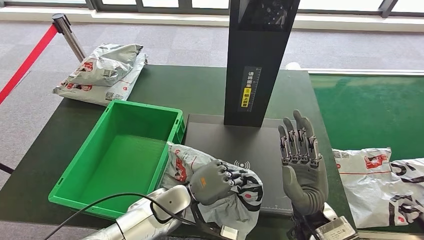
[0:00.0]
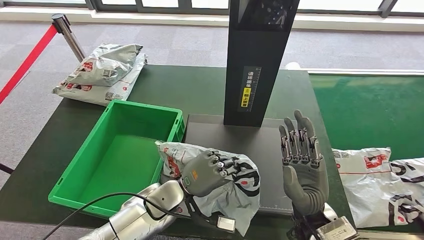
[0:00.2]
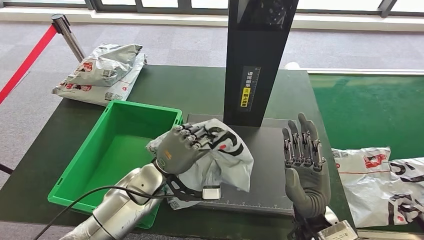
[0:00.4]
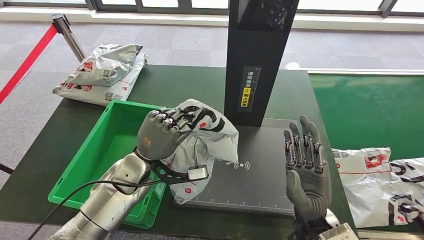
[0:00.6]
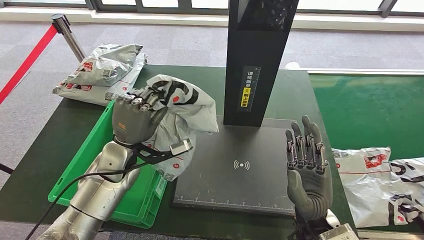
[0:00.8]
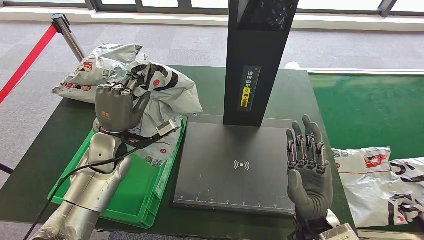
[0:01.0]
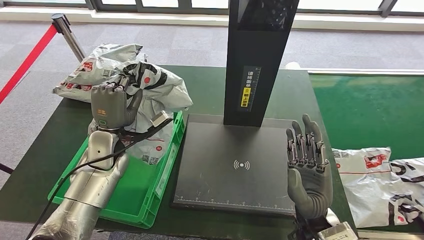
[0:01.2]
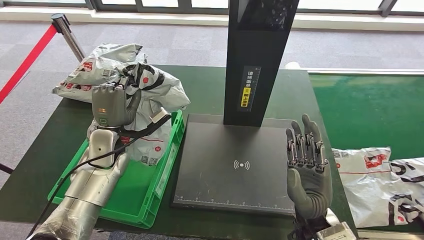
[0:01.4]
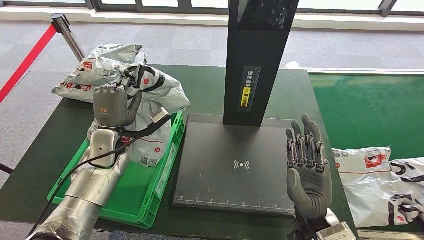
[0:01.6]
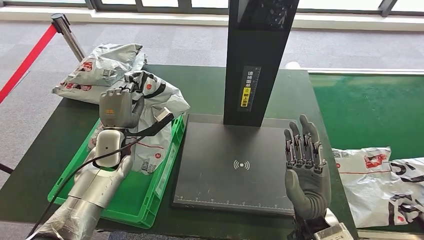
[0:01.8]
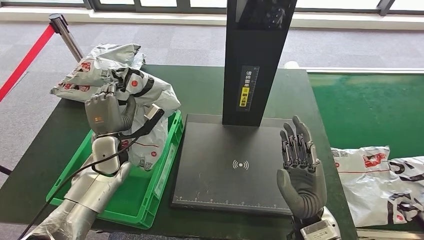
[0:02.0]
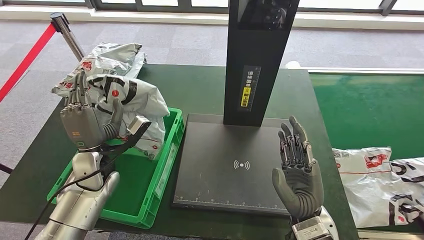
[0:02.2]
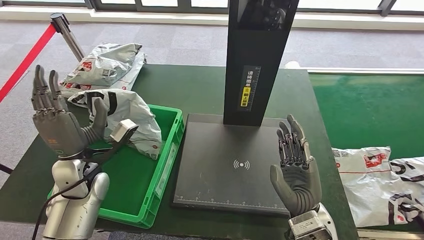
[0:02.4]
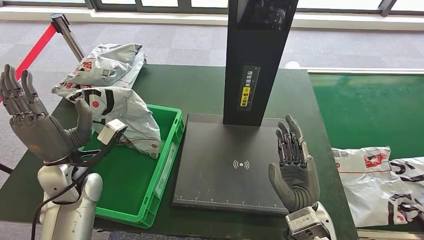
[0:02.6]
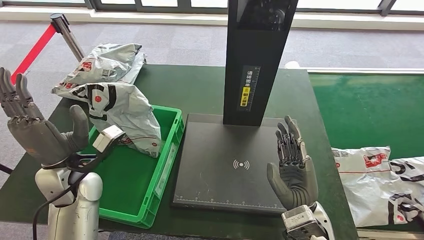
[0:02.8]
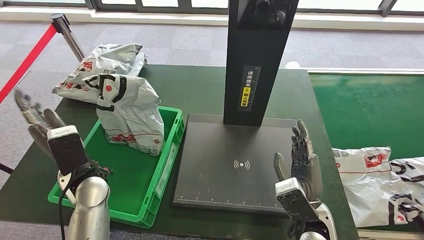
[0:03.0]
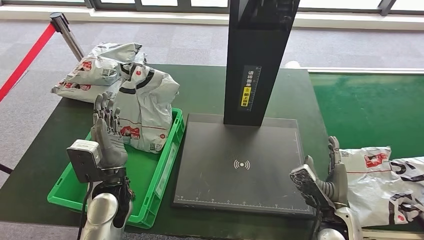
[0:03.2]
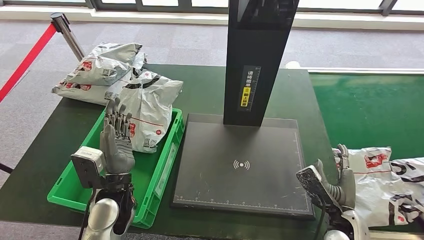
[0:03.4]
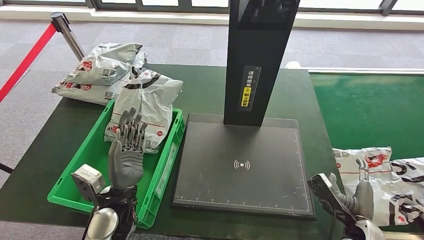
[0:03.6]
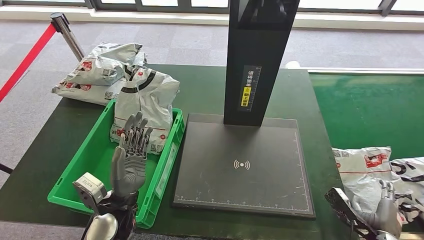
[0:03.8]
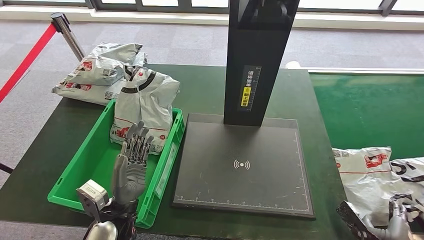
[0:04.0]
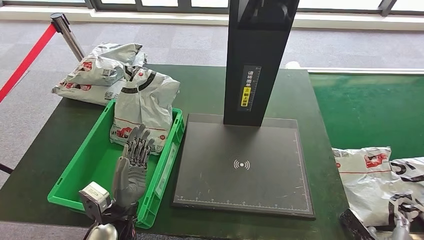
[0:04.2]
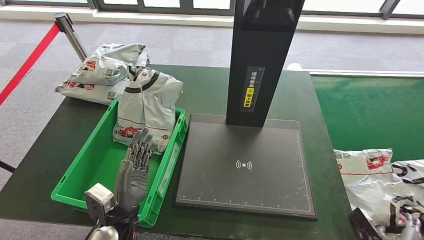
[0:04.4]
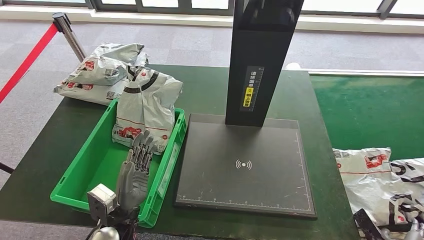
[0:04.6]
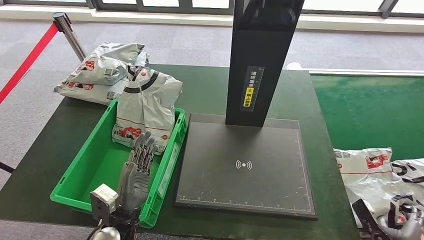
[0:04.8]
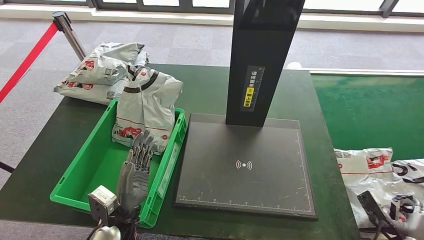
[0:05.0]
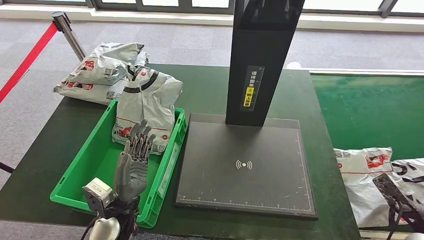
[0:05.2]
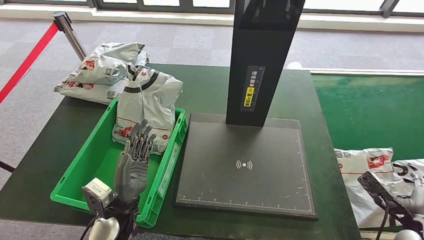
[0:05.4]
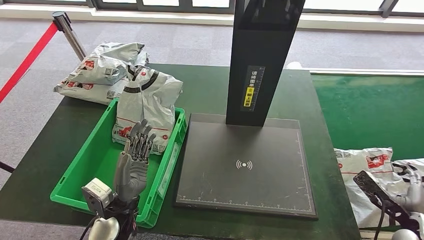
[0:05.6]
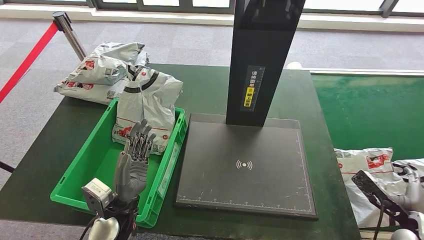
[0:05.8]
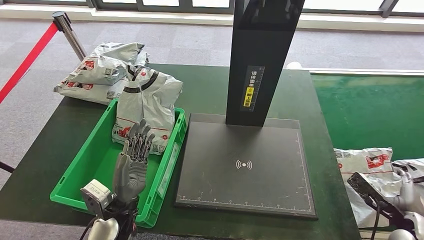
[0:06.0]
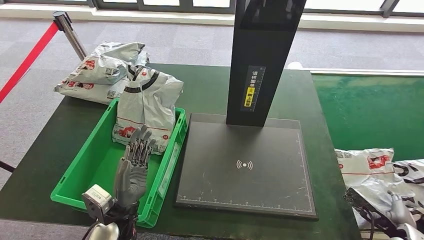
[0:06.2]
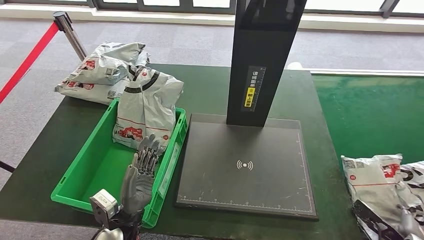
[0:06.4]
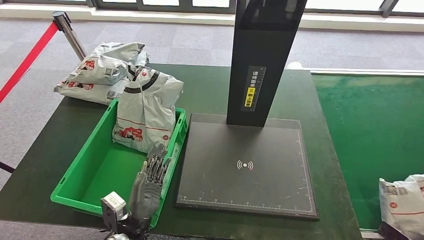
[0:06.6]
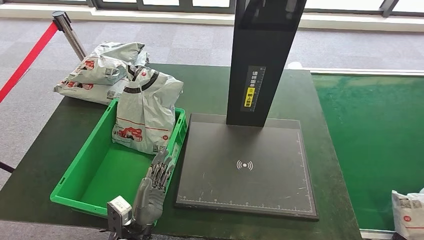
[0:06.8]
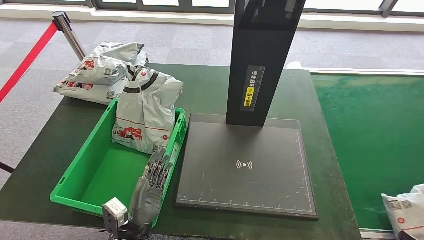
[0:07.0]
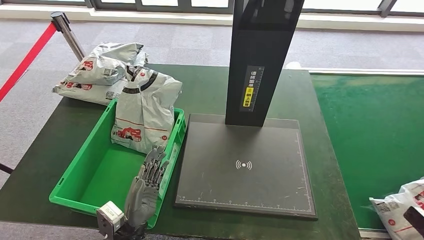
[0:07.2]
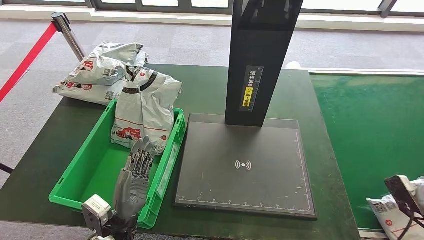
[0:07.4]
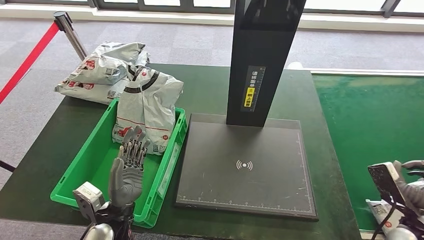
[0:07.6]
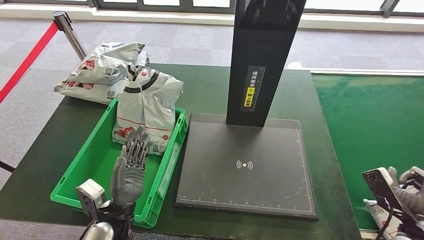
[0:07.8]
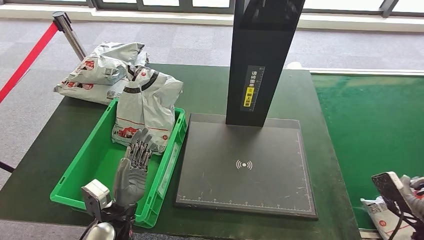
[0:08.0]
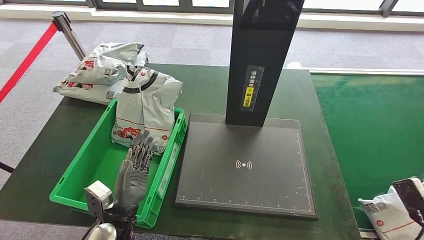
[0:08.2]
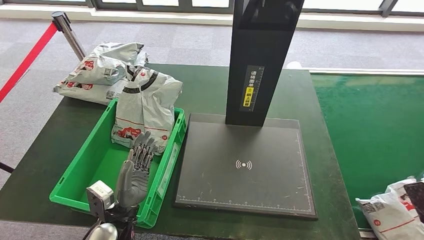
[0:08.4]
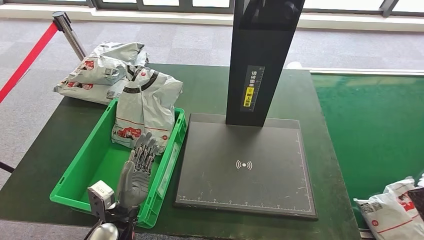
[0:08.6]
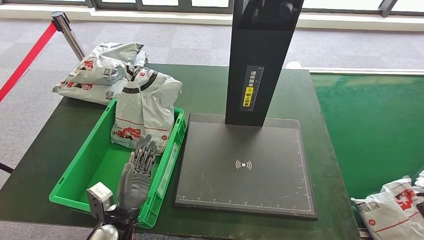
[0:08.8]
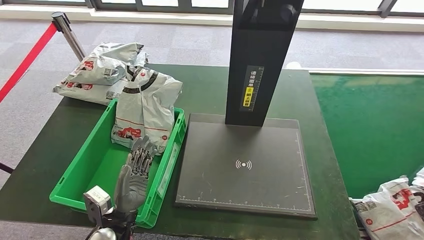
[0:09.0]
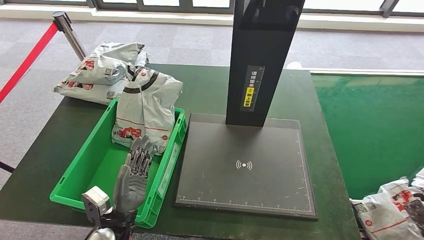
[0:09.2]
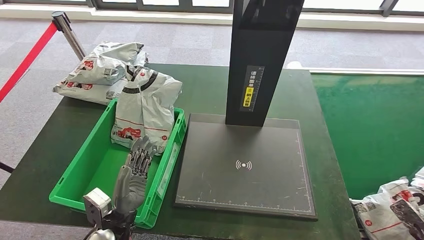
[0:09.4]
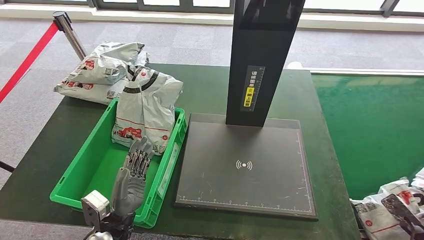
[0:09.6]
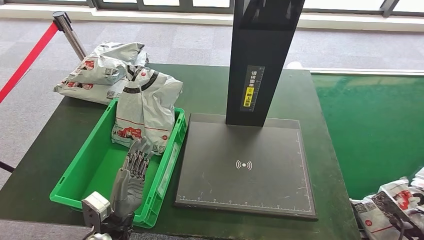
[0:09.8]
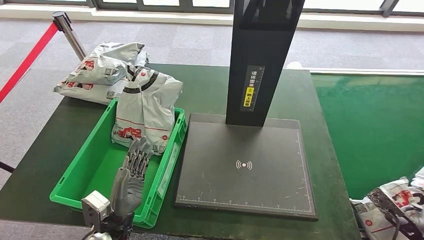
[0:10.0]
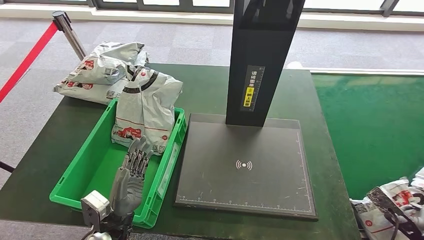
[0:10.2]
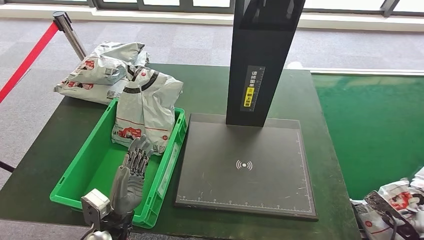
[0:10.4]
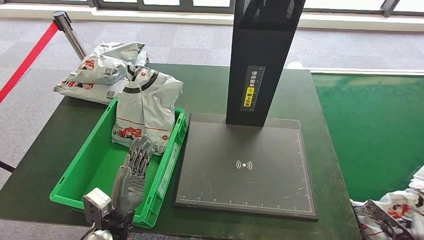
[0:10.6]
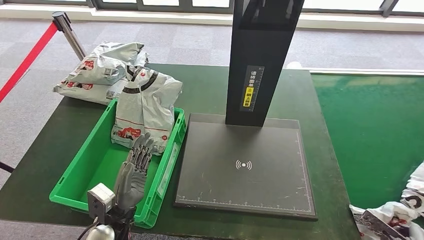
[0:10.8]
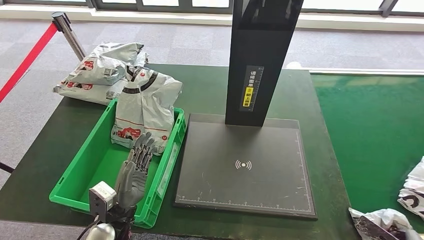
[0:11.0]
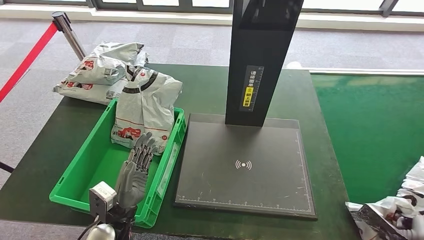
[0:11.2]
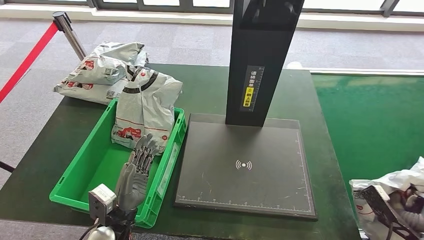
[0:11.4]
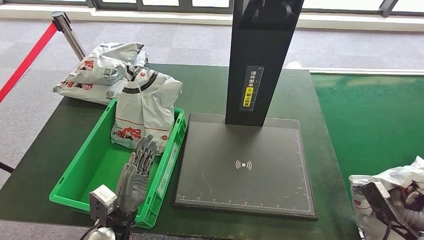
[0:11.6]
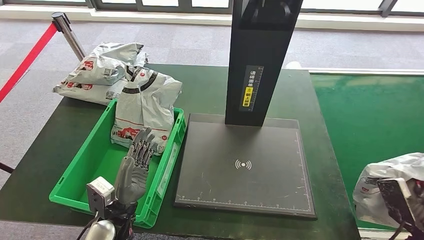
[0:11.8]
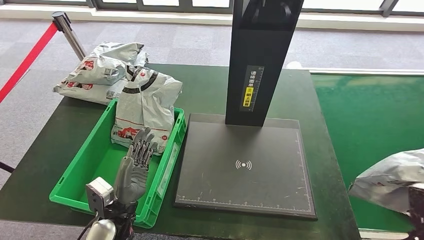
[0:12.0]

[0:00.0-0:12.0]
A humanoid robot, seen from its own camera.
Step, 0:01.4 to 0:04.0: Put the parcel inside the courier box.
0:01.6 to 0:03.0: The left hand moves backward, approximately 10 cm.
0:04.4 to 0:06.0: The right hand goes approximately 15 cm upward and forward.
0:06.0 to 0:07.6: The right hand reaches approximately 10 cm to the right, then returns.
0:07.6 to 0:09.0: The right hand goes some 10 cm backward and to the right.
0:09.0 to 0:10.4: The right hand goes roughly 10 cm downward and forward.
0:10.4 to 0:12.0: The right hand travels to the left and upward by approximately 10 cm.

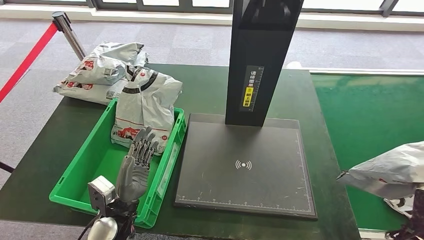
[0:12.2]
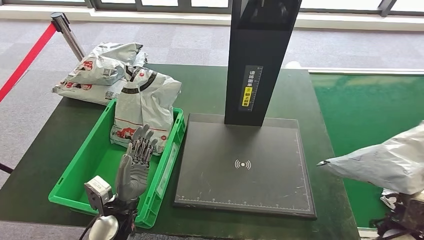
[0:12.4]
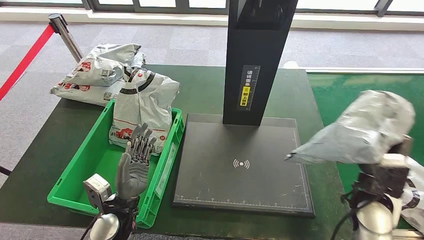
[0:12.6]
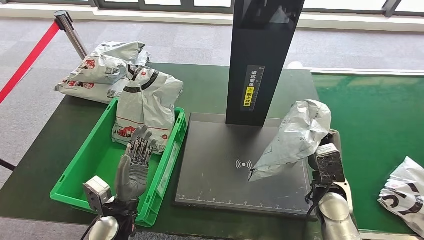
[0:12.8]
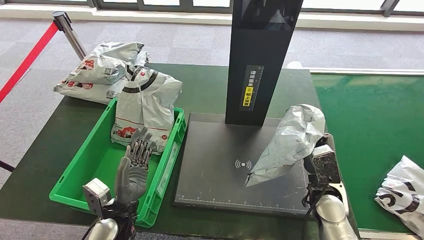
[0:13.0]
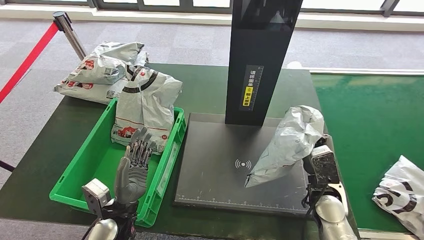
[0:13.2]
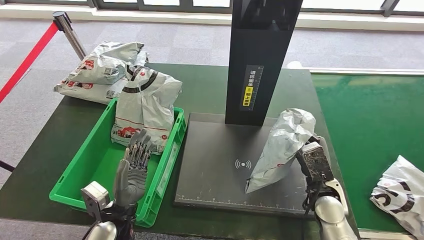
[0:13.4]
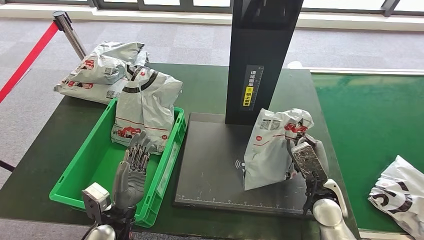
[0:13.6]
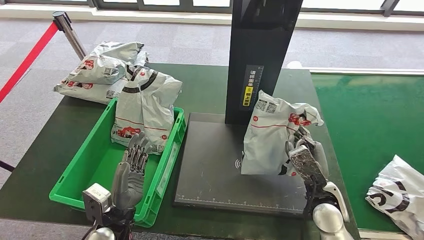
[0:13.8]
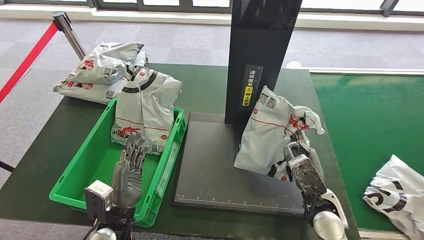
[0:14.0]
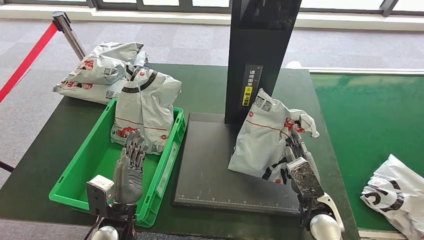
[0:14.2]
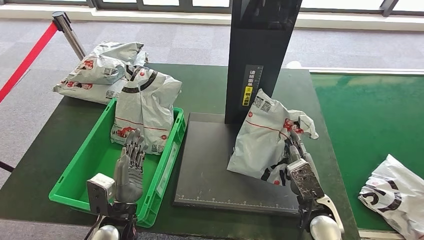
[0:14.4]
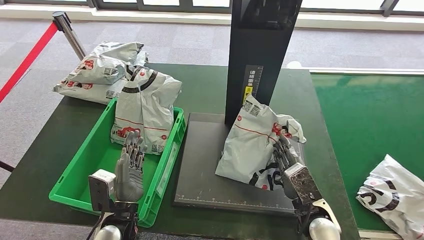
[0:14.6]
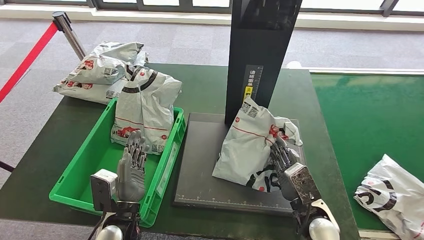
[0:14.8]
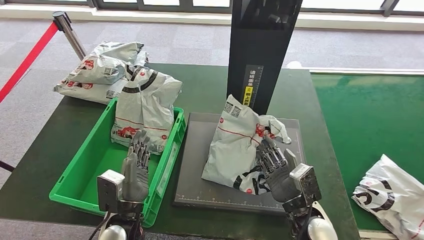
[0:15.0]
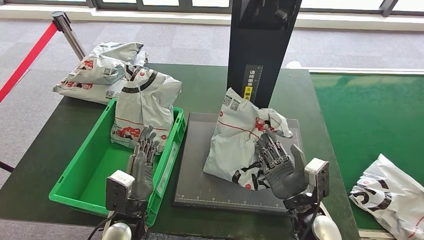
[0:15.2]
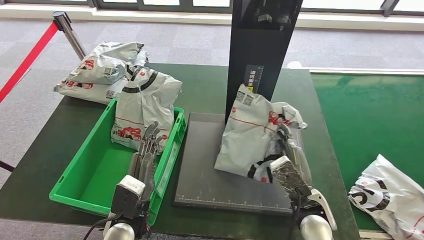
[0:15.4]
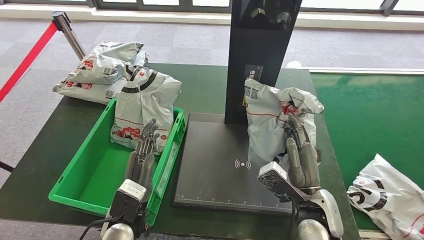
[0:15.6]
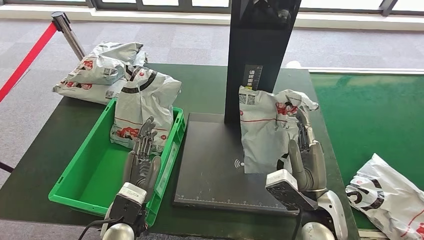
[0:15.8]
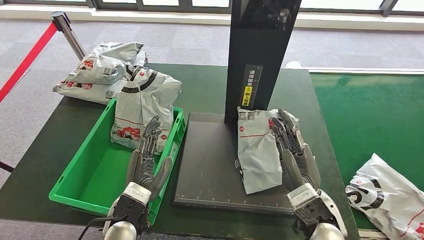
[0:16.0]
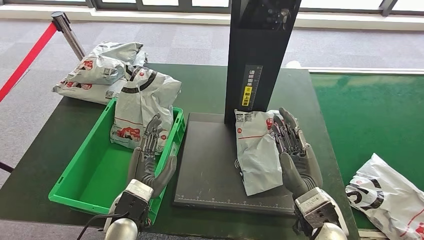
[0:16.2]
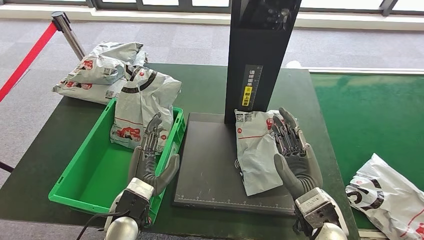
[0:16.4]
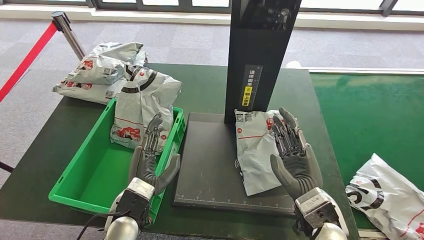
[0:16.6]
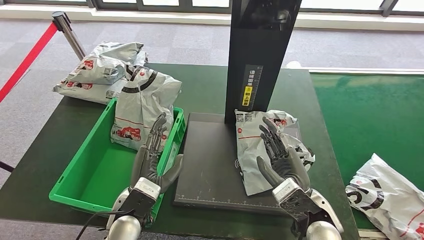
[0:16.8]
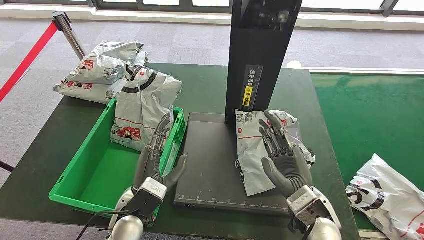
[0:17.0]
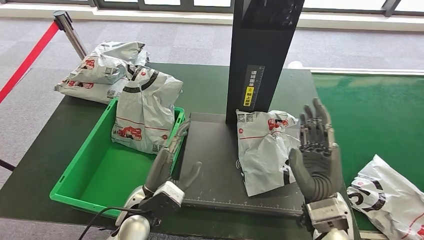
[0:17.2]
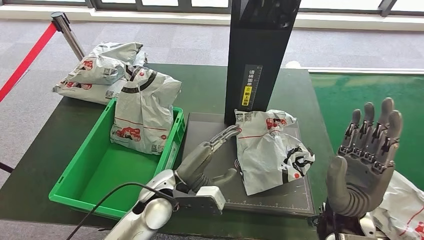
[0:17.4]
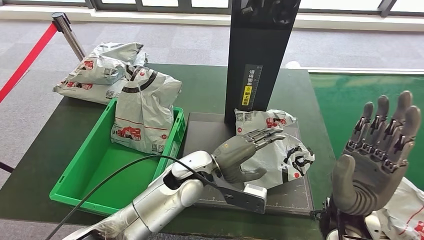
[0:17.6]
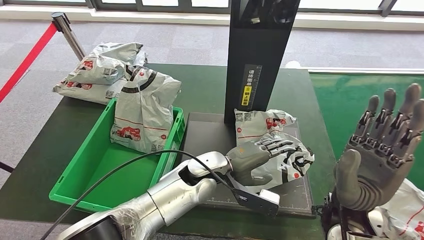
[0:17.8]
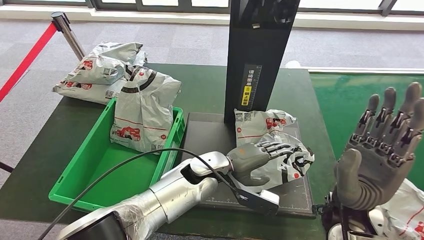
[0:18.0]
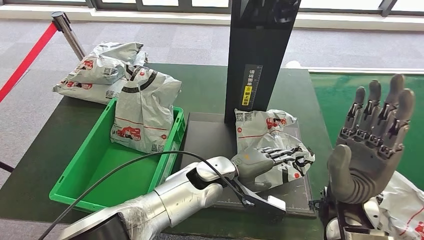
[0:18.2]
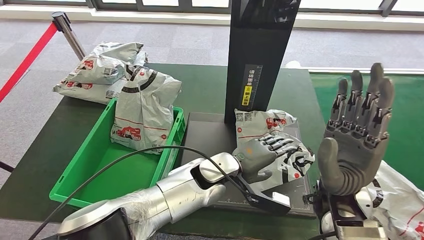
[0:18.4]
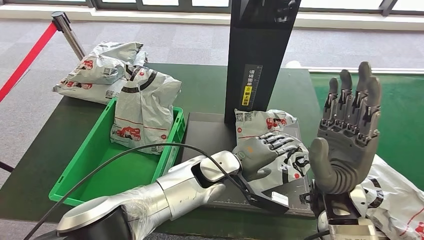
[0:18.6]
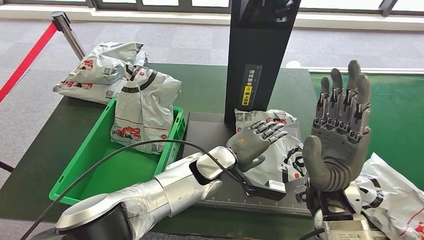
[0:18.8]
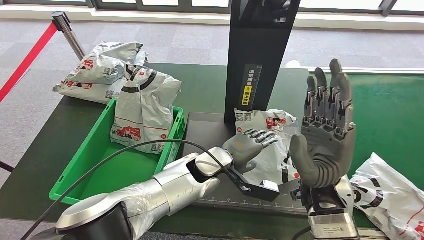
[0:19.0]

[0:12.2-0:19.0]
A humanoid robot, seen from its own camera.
Step, 0:12.4 to 0:17.0: Place the parcel onto the inbound machine.
0:12.2 to 0:13.6: The right hand shifts about 20 cm to the left and forward.
0:13.6 to 0:15.0: The right hand shifts roughly 5 cm to the left.
0:15.0 to 0:16.2: The right hand is displaced upward by approximately 10 cm.
